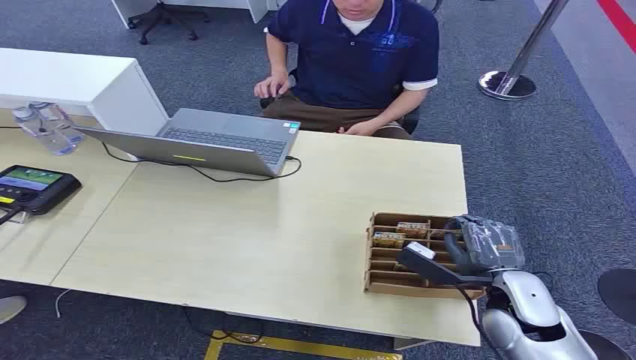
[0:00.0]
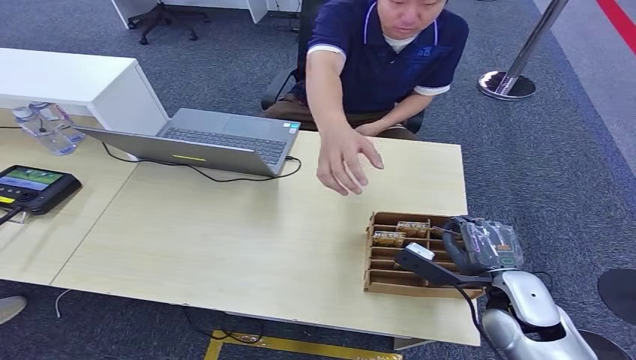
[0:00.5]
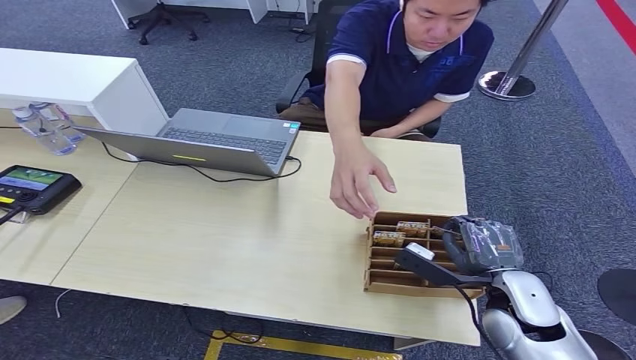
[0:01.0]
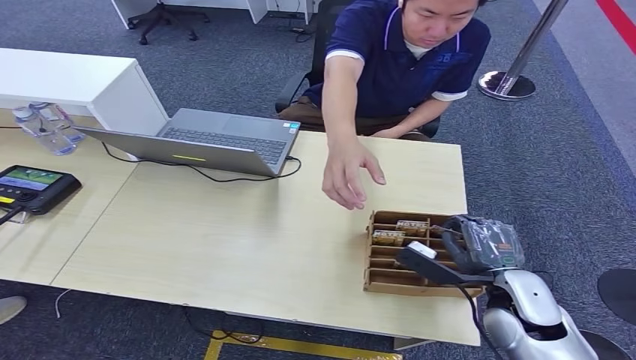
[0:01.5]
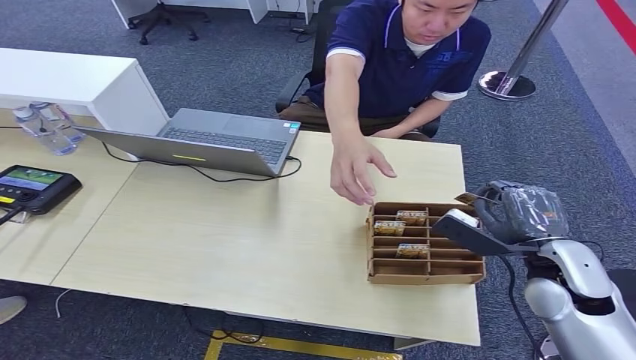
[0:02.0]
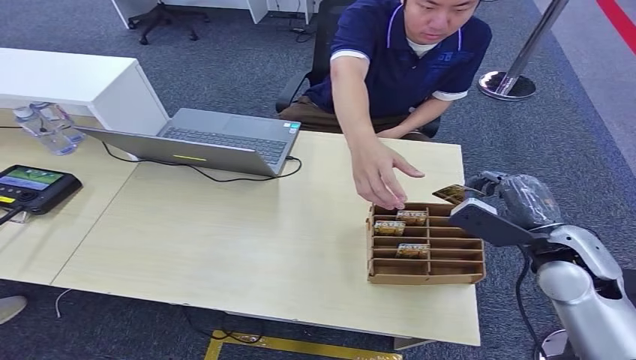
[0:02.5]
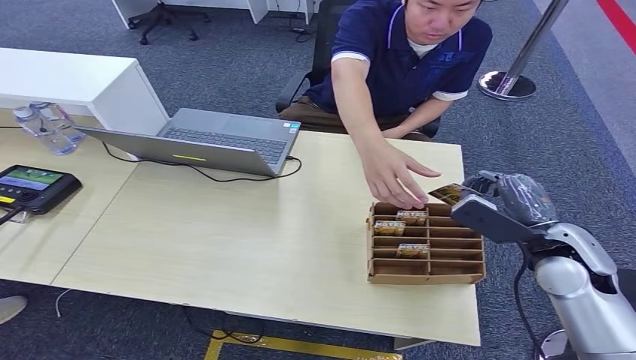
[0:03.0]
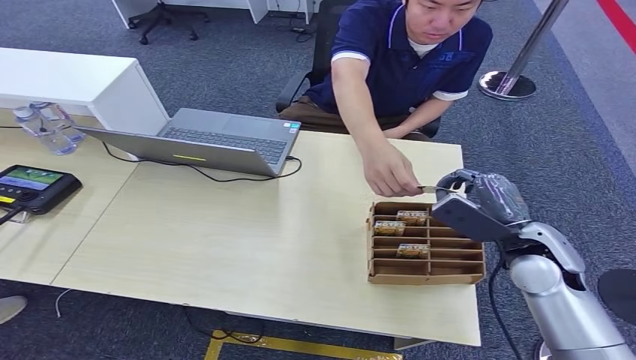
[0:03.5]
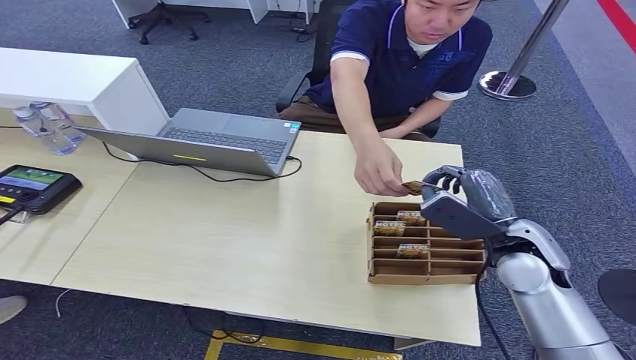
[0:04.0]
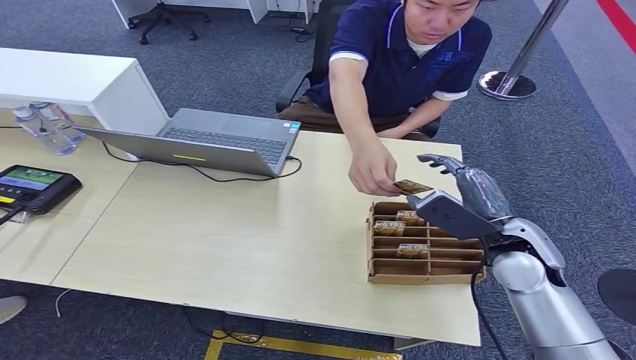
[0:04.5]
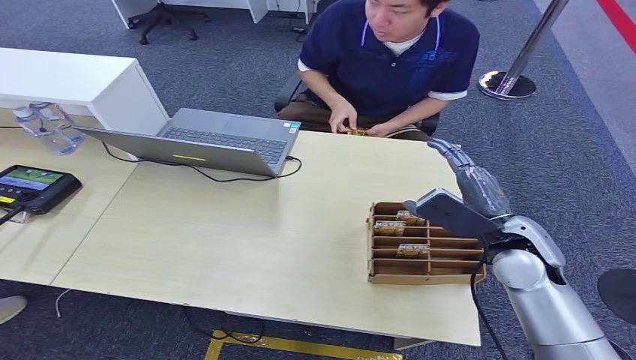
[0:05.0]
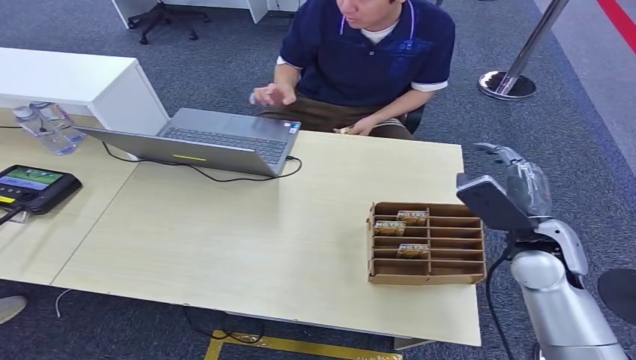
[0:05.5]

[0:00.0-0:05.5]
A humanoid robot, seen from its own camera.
Step, 0:00.0 to 0:02.5: Pick up the room card from the card holder.
Step, 0:03.5 to 0:05.5: Hand the room card to the target.
0:03.5 to 0:05.5: The hands stay close to where they were, moving slightly.
